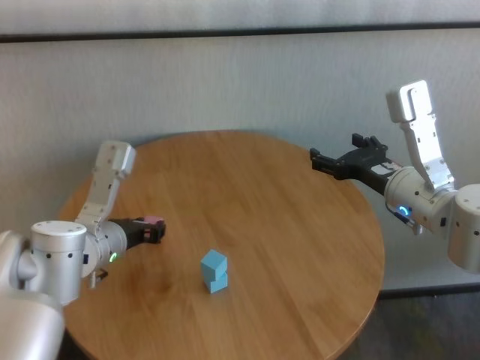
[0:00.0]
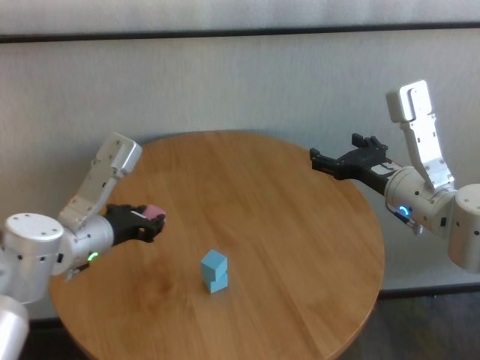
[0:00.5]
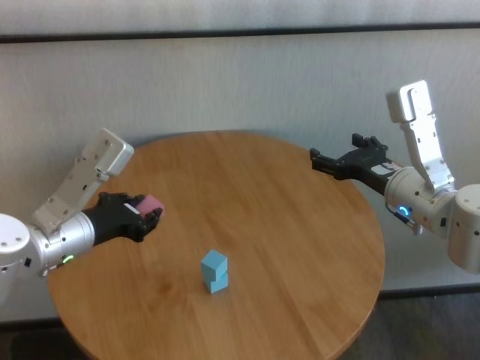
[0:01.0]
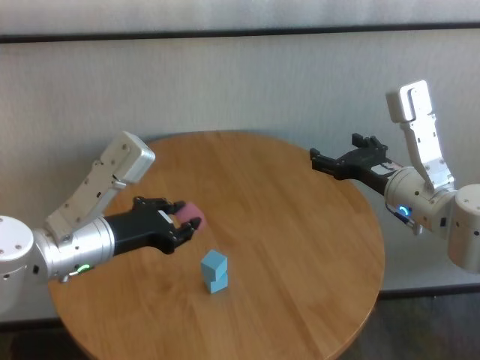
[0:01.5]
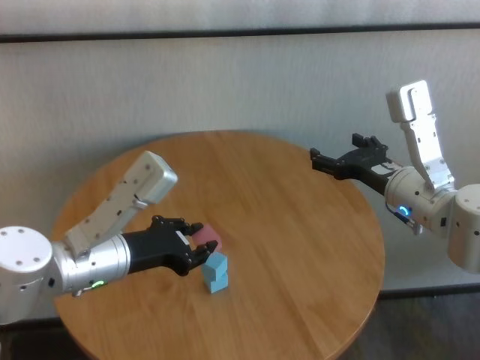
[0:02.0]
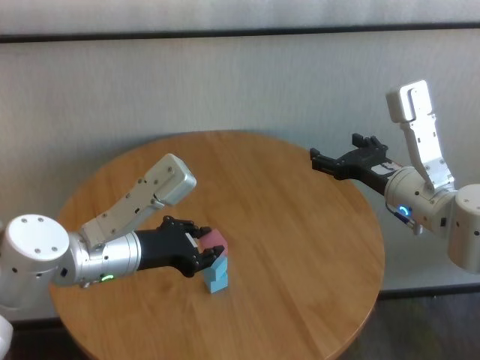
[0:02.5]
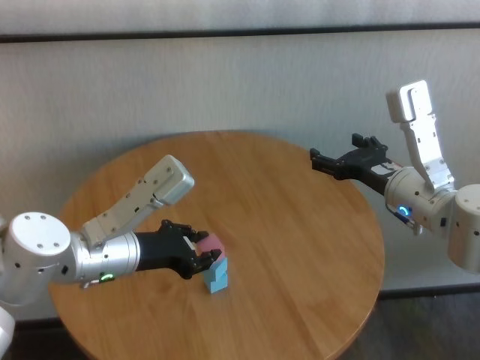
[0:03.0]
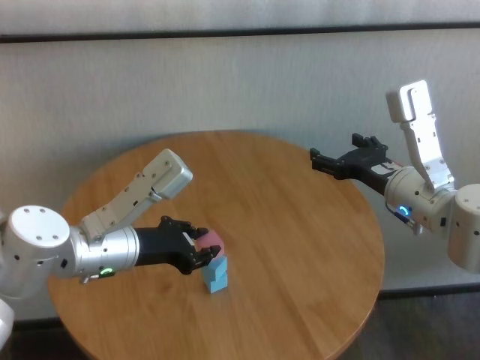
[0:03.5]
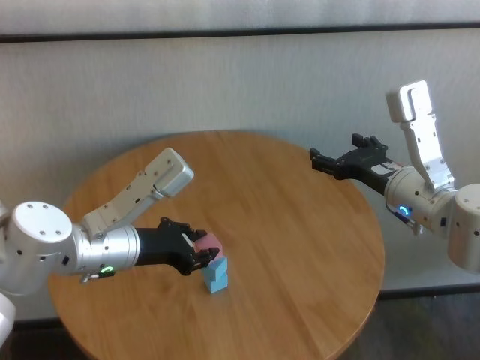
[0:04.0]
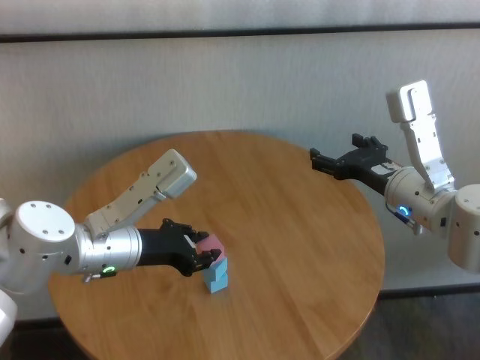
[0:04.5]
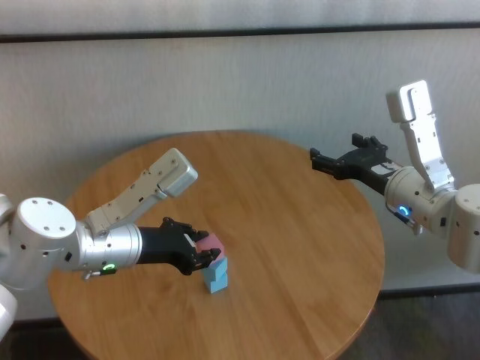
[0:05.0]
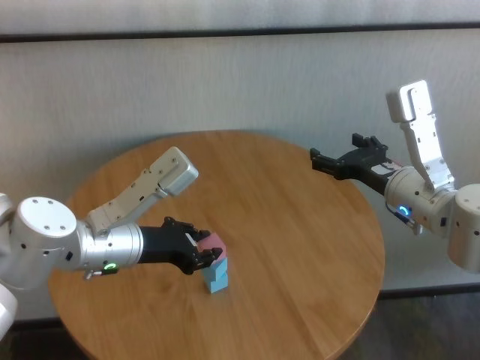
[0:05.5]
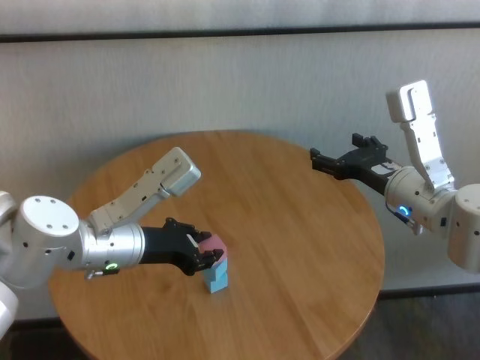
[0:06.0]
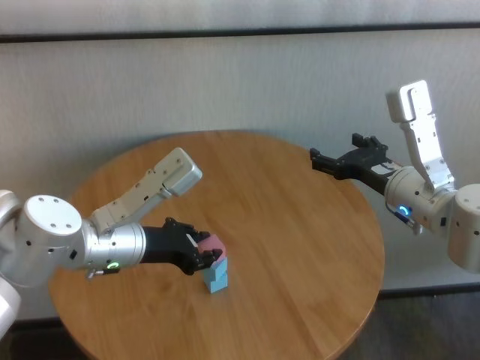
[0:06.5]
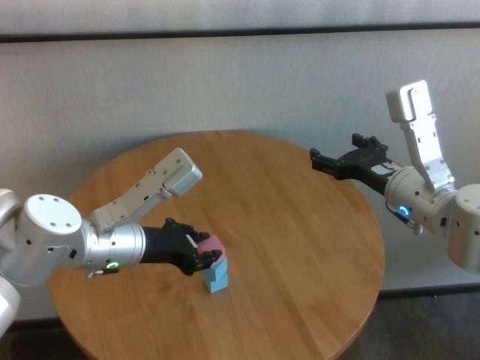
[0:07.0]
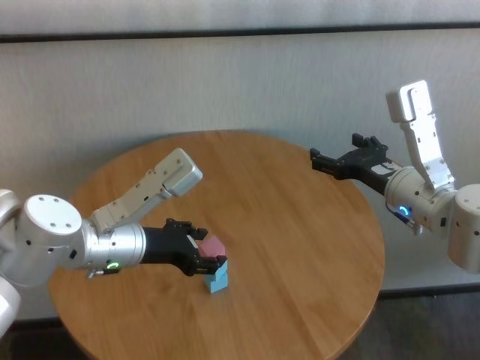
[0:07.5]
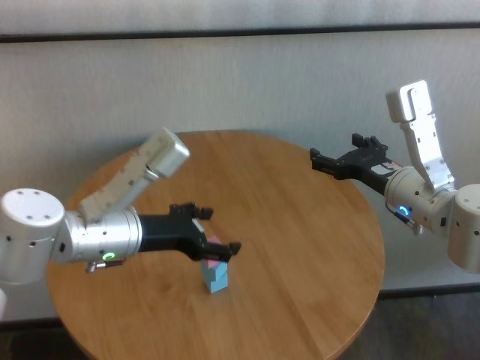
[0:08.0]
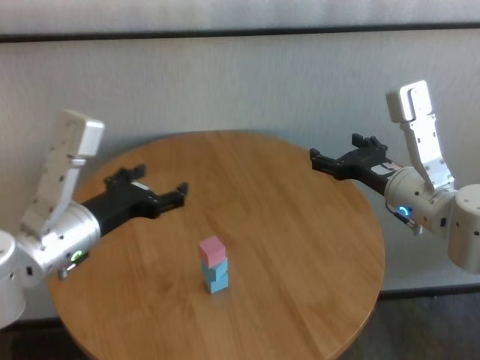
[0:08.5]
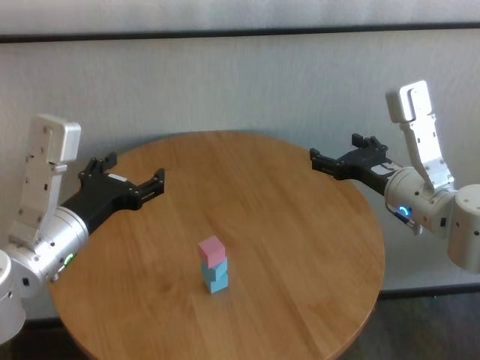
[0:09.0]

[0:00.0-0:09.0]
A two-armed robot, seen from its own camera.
Task of the whole recording: stack building blocks on the table.
Step, 0:00.0 to 0:07.0: Place the pink building block on the blue building blocks with left gripper.
